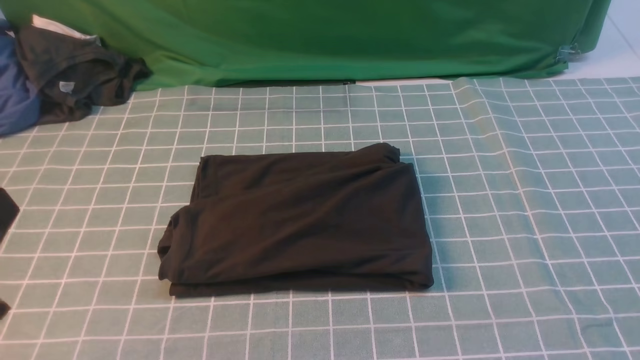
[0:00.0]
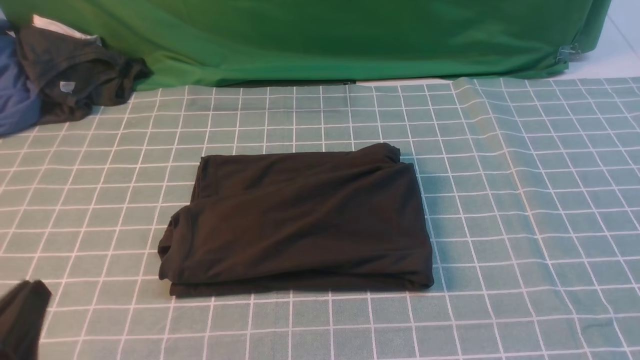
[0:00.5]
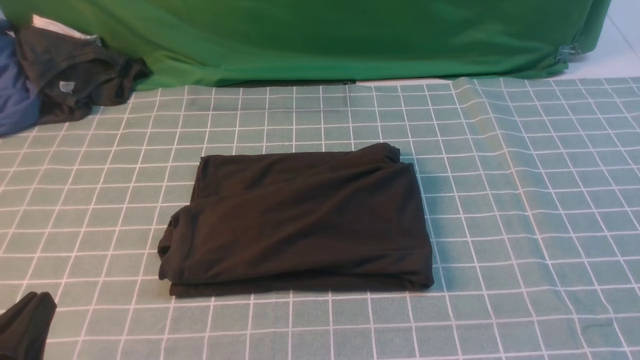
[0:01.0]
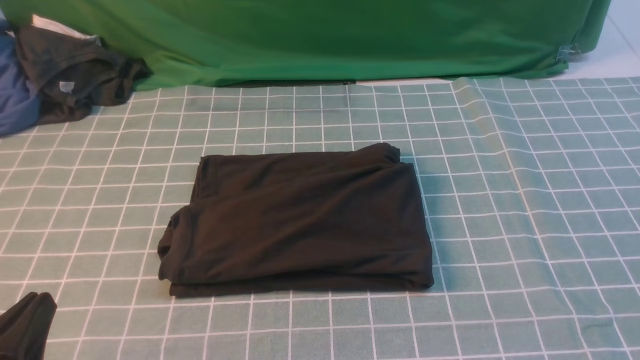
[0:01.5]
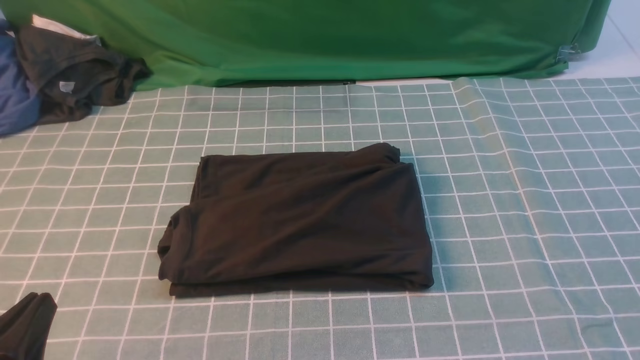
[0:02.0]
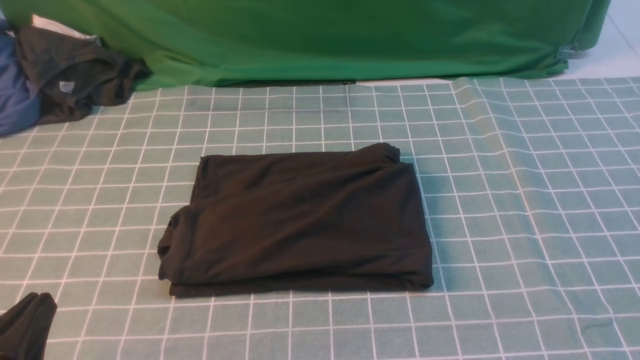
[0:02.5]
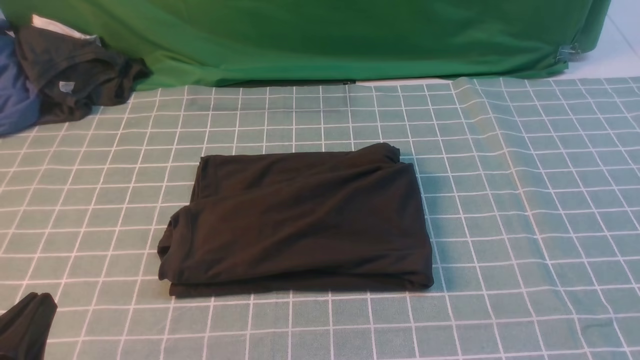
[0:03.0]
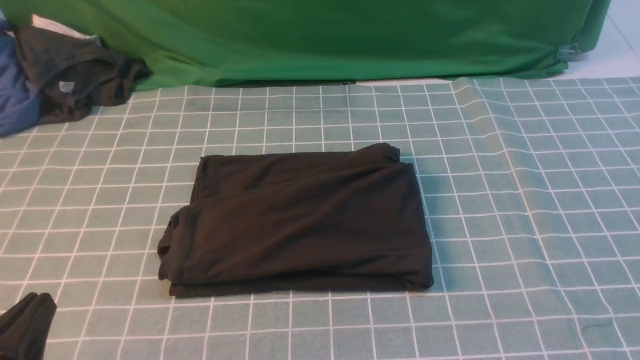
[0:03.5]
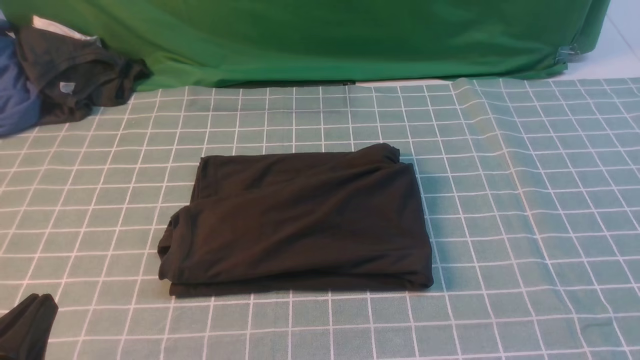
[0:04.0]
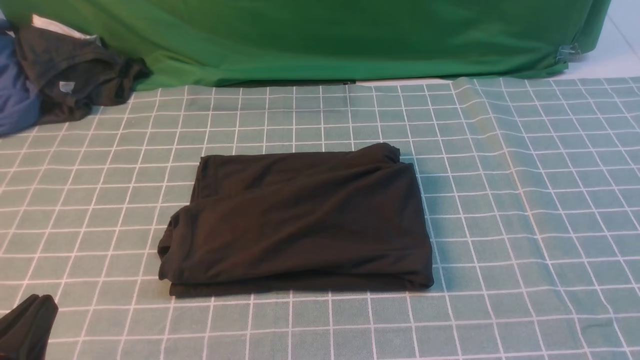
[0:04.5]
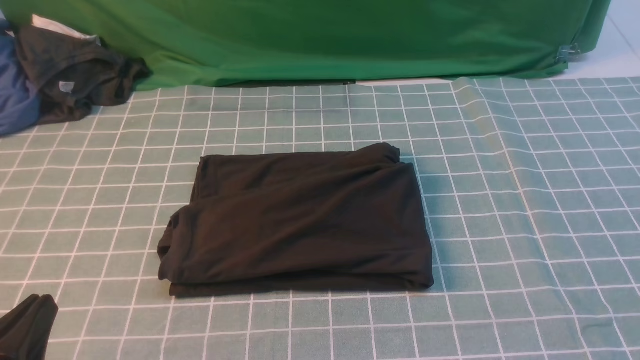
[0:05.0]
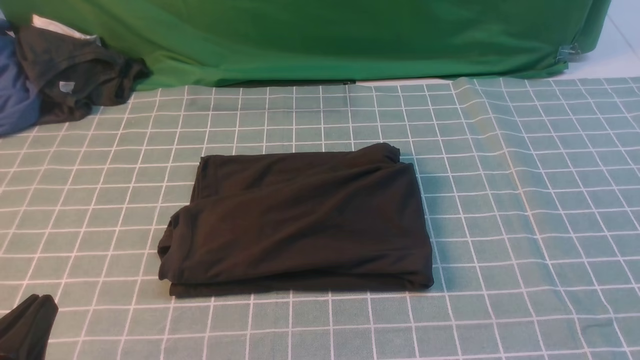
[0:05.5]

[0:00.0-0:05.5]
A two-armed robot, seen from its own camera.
0:00.0 to 0:02.0: The left gripper heads downward, covering some 10 cm.

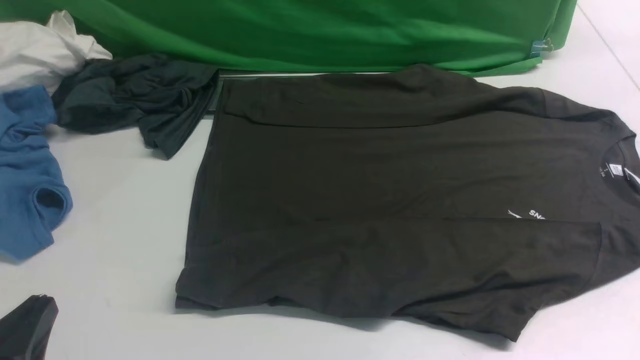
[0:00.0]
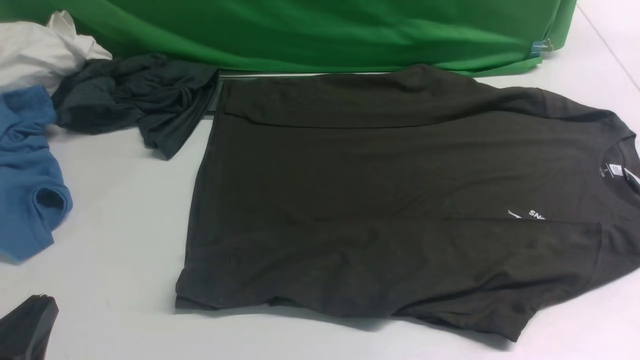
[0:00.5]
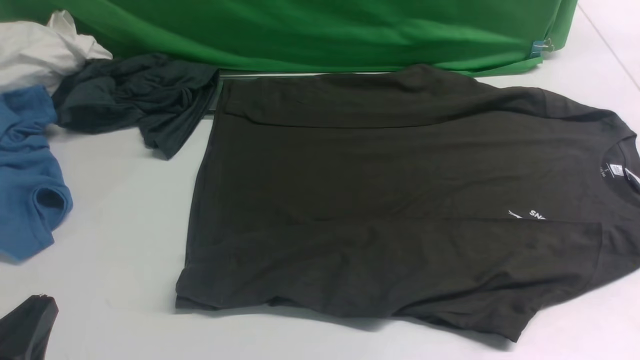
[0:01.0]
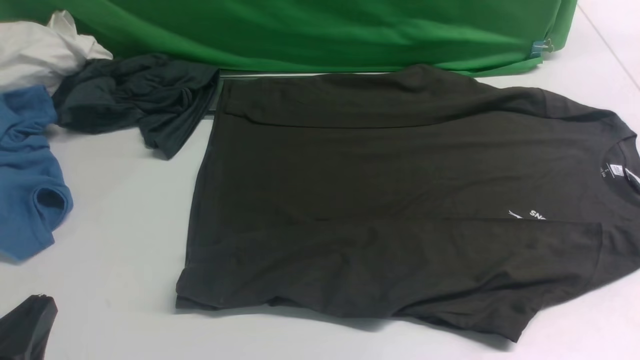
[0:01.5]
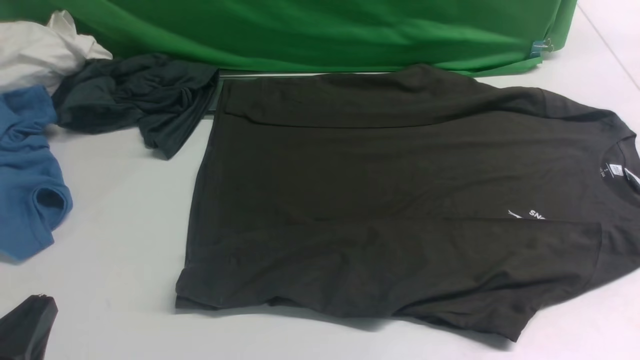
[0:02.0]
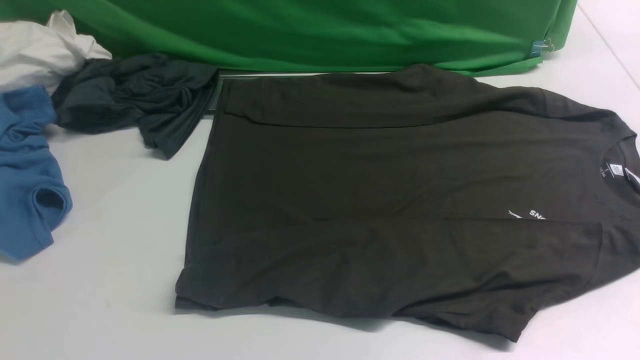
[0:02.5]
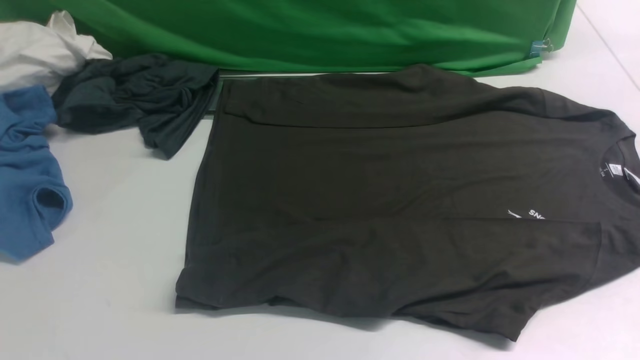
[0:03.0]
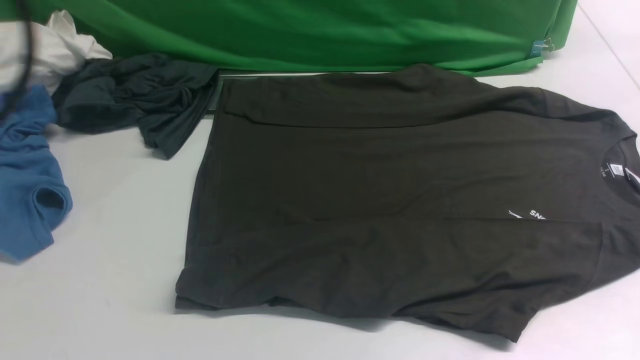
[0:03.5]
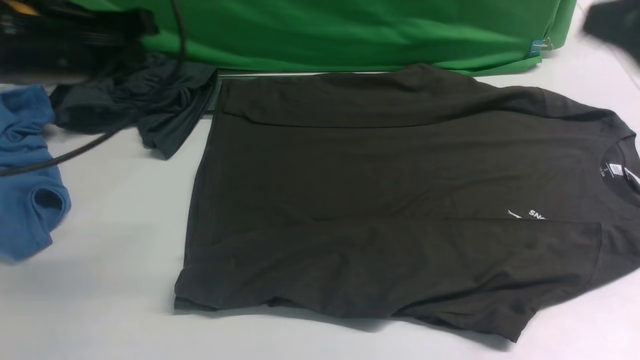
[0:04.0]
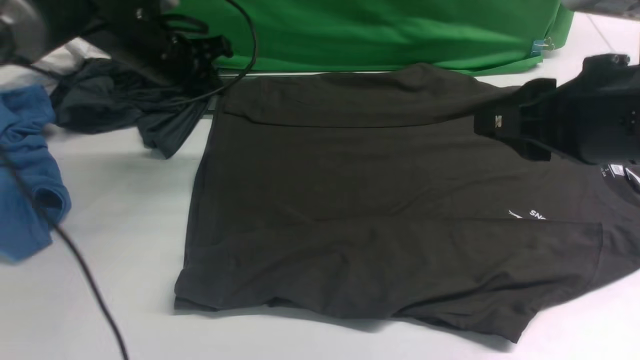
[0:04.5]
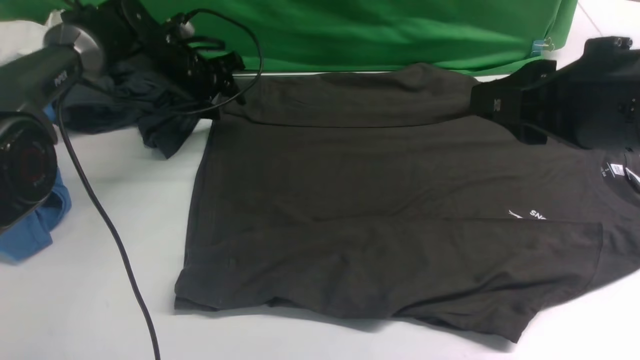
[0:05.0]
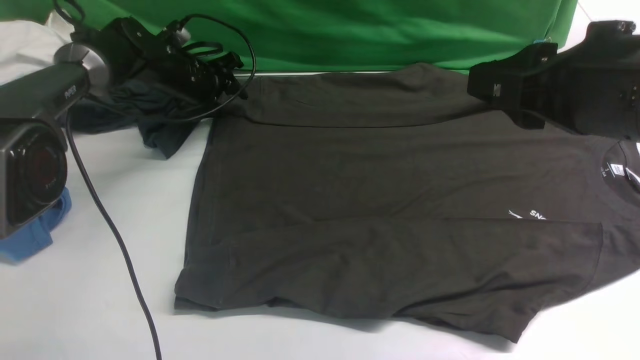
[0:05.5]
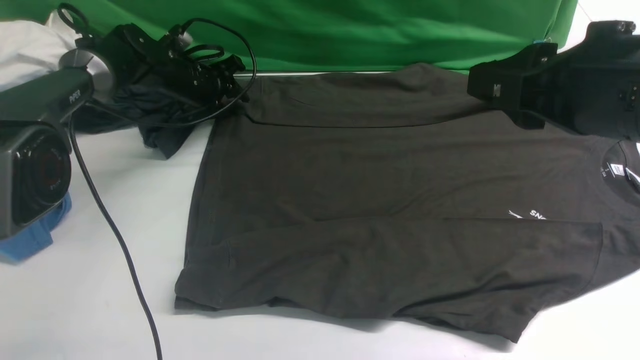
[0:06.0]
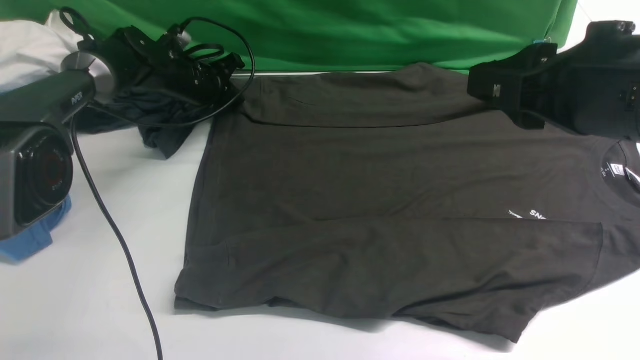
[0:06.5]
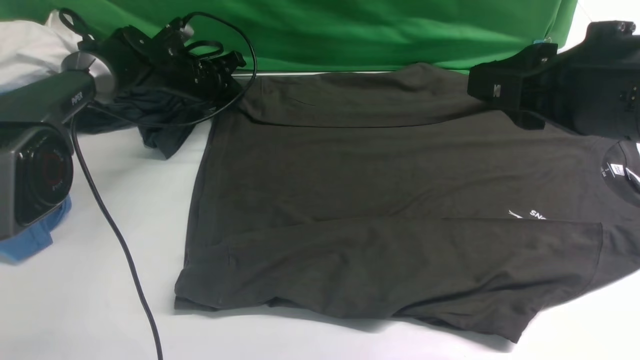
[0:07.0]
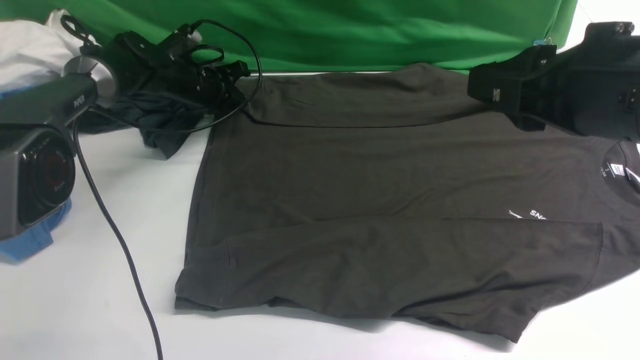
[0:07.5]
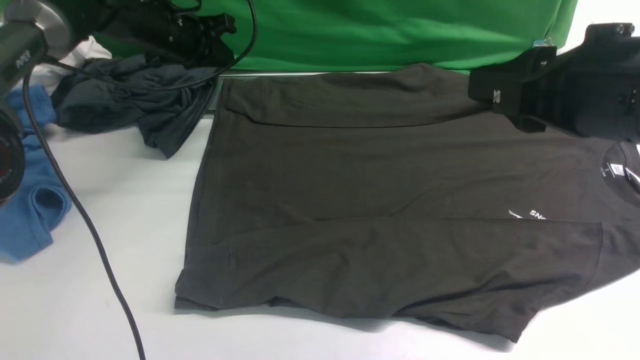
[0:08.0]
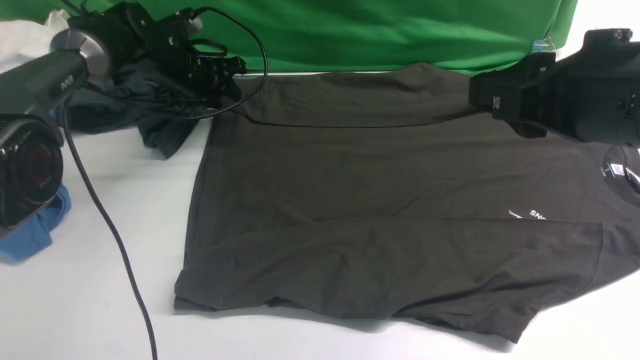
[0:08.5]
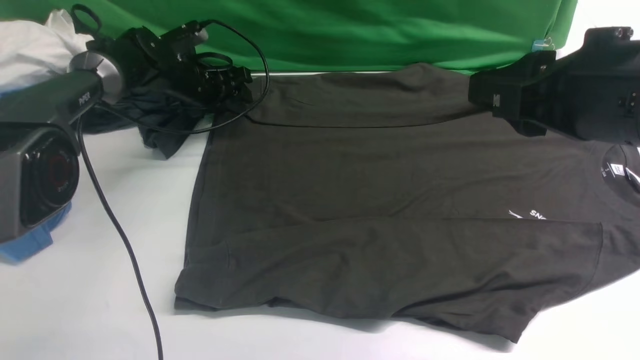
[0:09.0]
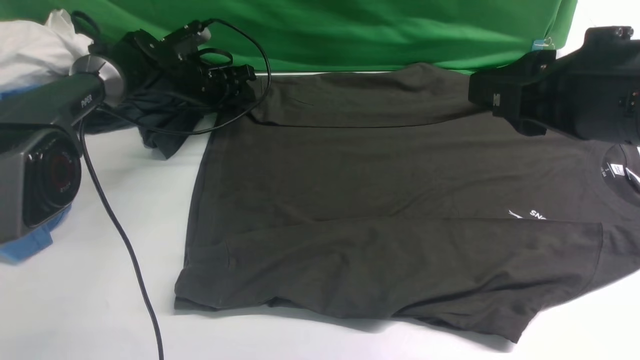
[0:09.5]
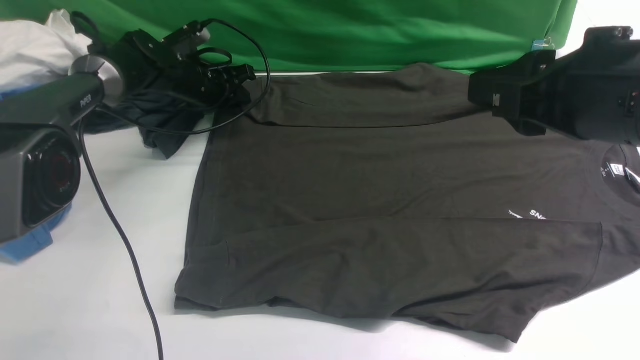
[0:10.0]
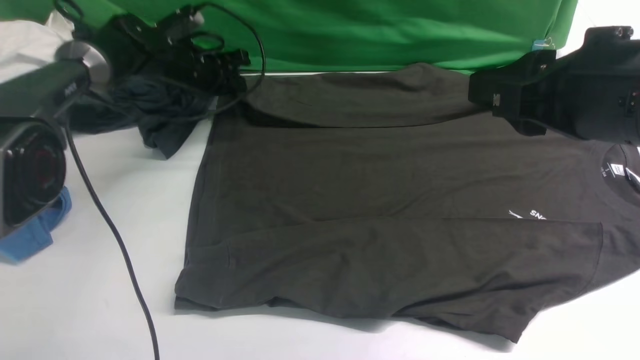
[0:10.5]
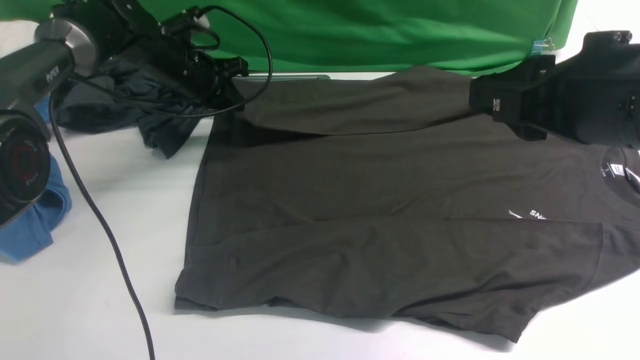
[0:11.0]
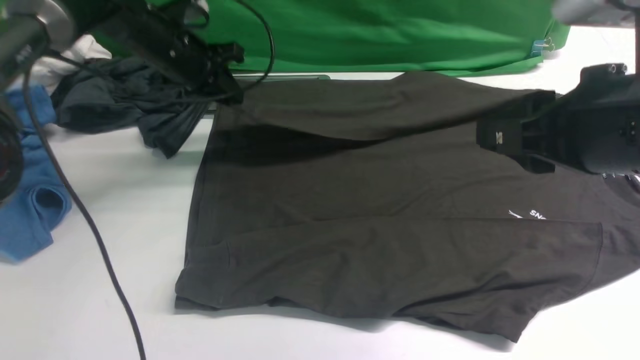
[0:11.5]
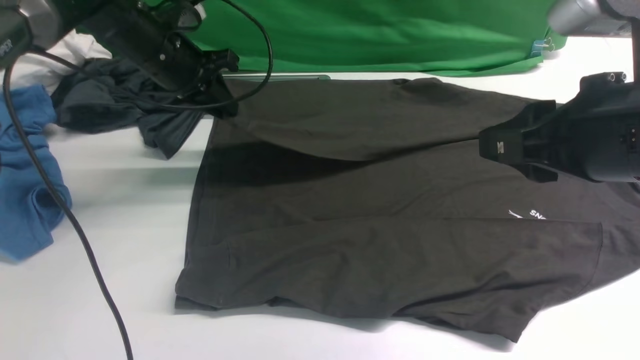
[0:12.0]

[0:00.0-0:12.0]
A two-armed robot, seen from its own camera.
Step, 0:00.0 to 0:10.0: use the left arm to clamp the cuff farthest from it.
0:02.0 to 0:04.0: The left gripper shifts roughly 30 cm forward and upward. Meanwhile the right gripper is displaced upward, forward and to the left by some 25 cm.
0:04.0 to 0:06.0: The left gripper travels forward and downward by about 30 cm, and opens up, while the right gripper ends up about 5 cm from where it was.
0:06.0 to 0:08.0: The left gripper shifts some 5 cm upward, and closes up.
0:08.0 to 0:10.0: The left gripper heads downward, covering some 5 cm, and opens, then closes once more.
0:10.0 to 0:12.0: The left gripper moves upward and backward, about 15 cm.

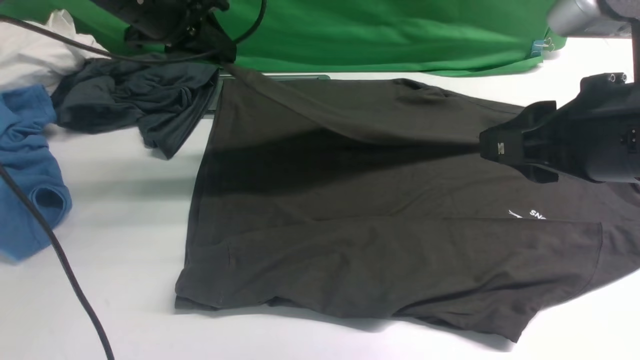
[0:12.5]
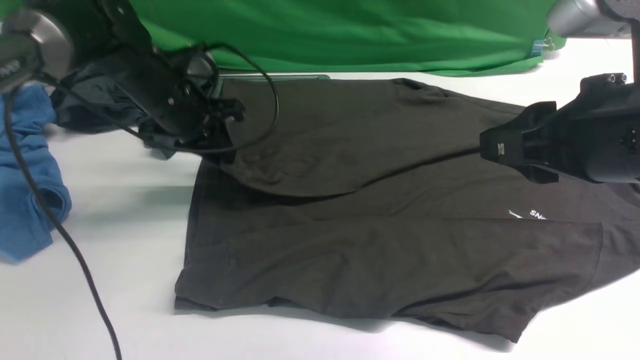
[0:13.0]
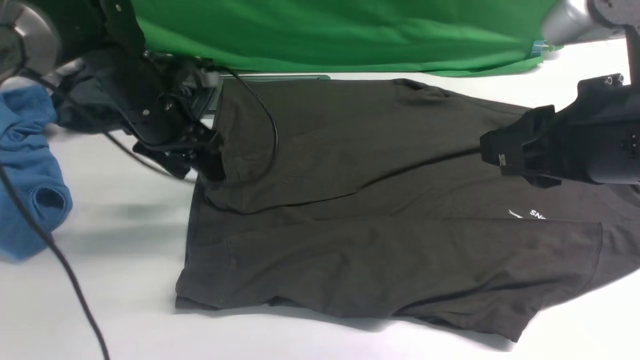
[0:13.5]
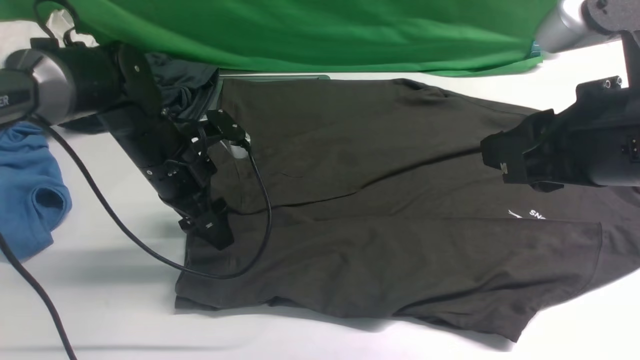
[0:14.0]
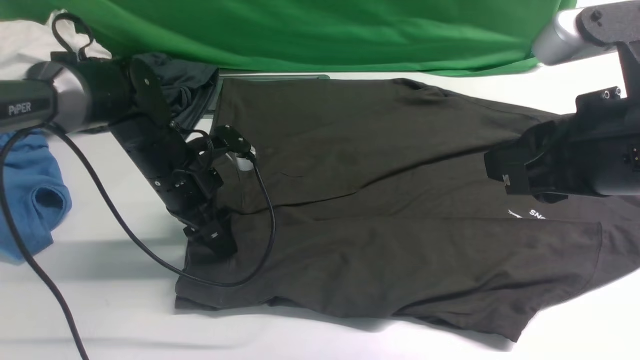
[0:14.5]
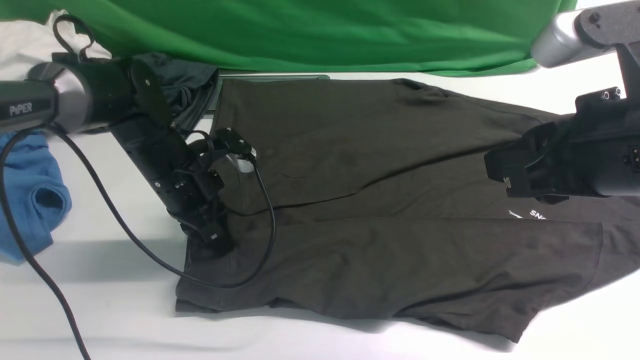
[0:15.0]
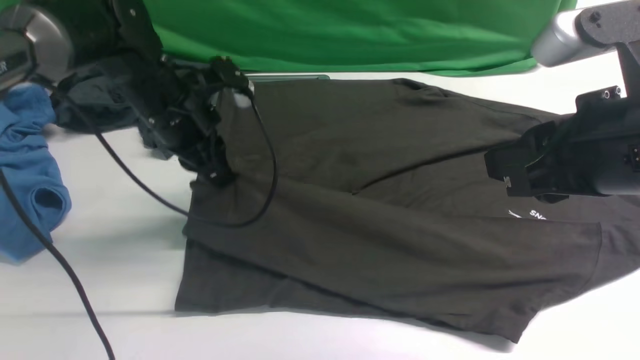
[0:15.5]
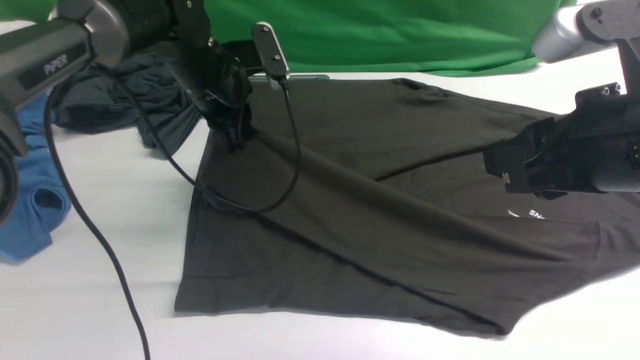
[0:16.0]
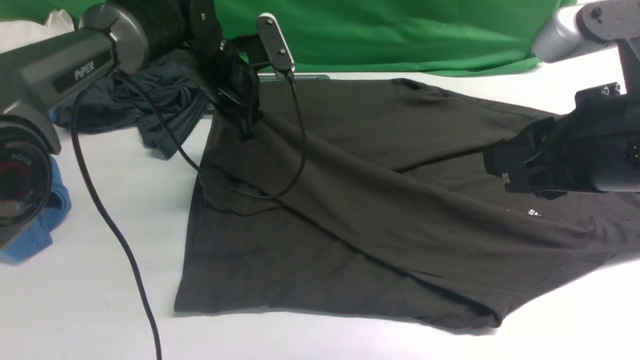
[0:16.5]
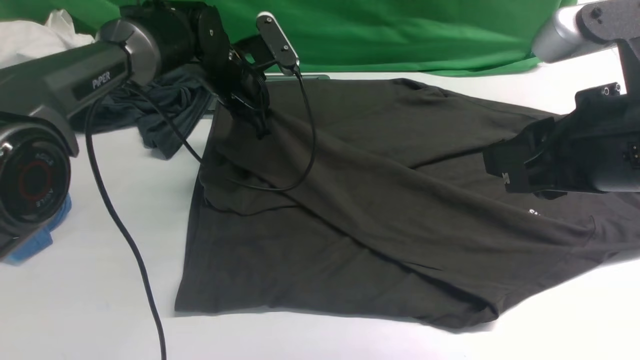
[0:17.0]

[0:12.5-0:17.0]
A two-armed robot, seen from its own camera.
Step, 0:14.0 to 0:15.0: use the left arm to clamp the cuff closest to it.
0:12.5 to 0:14.5: The left gripper moves downward and backward, some 15 cm, and opens.
0:14.5 to 0:17.0: The left gripper heads forward, covering roughly 10 cm.
